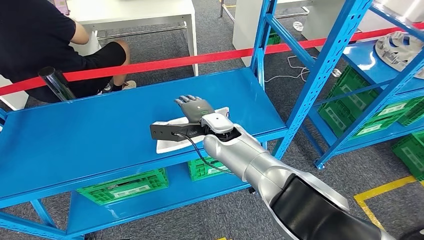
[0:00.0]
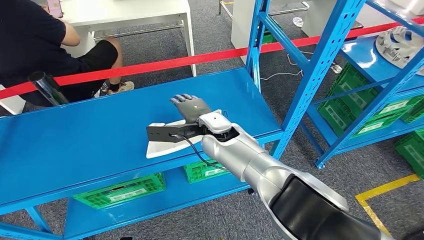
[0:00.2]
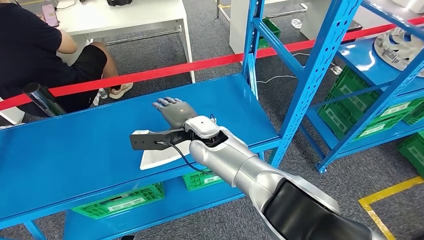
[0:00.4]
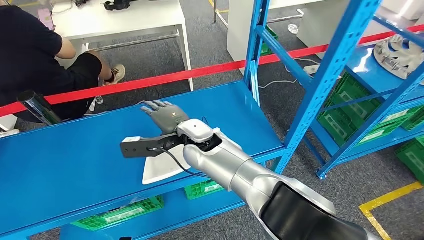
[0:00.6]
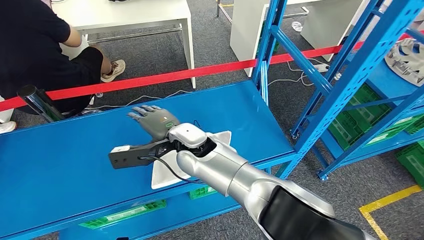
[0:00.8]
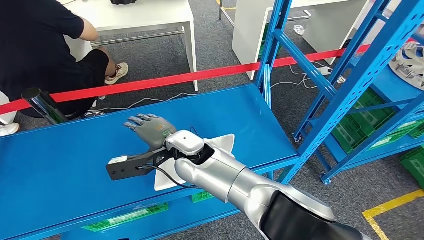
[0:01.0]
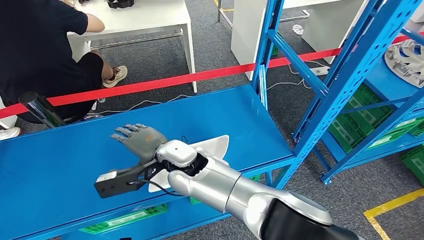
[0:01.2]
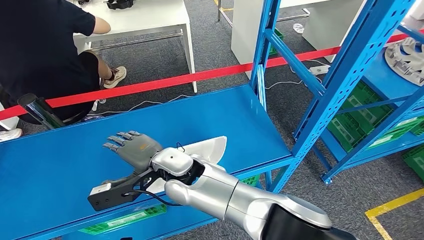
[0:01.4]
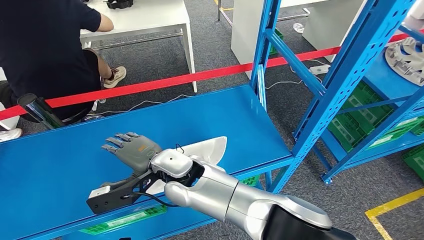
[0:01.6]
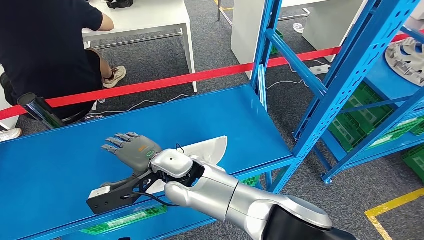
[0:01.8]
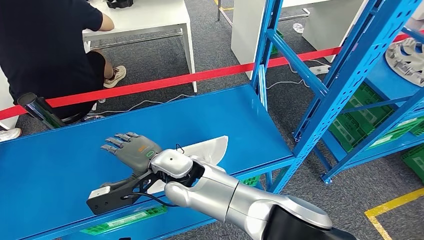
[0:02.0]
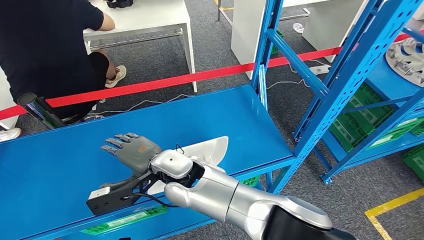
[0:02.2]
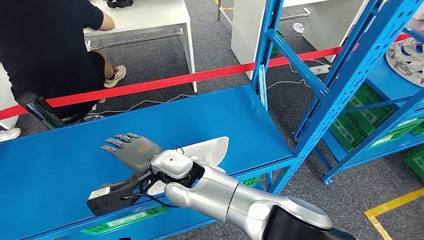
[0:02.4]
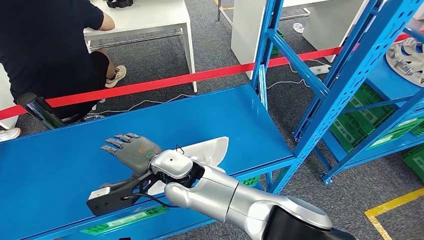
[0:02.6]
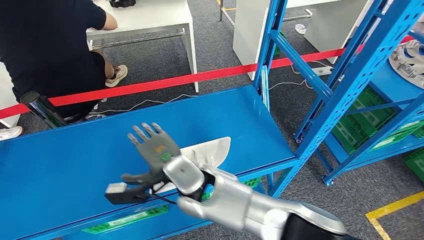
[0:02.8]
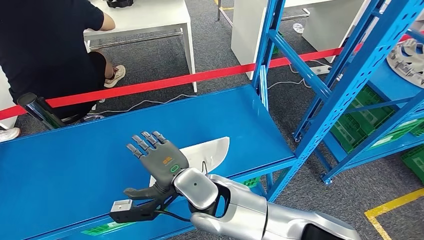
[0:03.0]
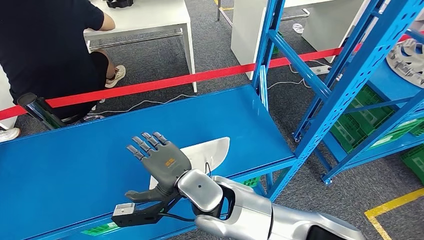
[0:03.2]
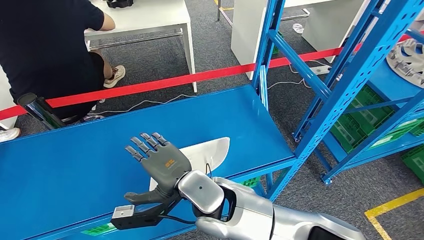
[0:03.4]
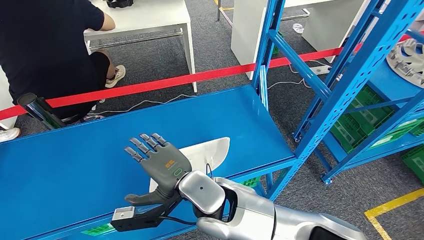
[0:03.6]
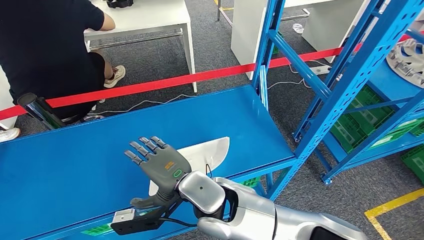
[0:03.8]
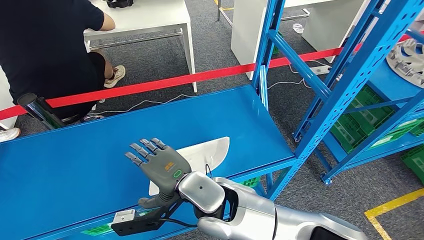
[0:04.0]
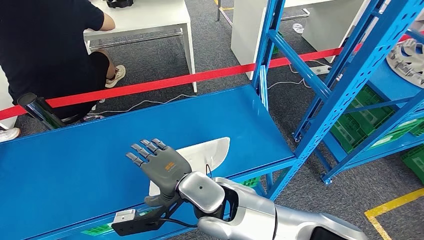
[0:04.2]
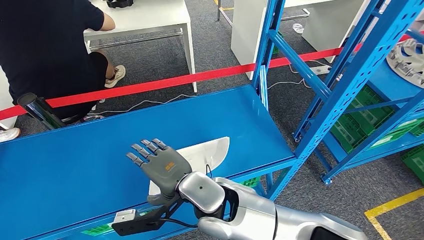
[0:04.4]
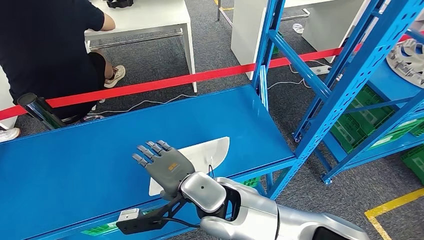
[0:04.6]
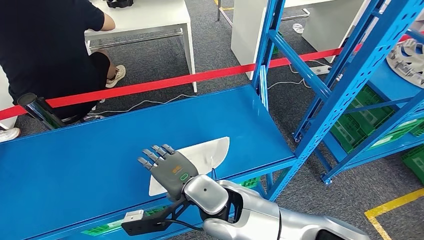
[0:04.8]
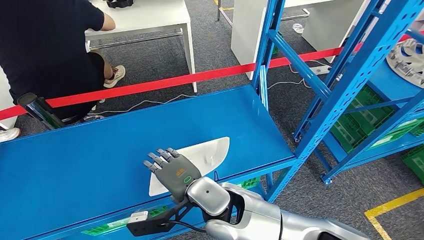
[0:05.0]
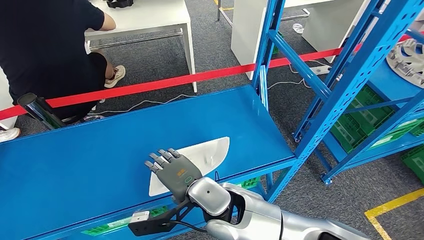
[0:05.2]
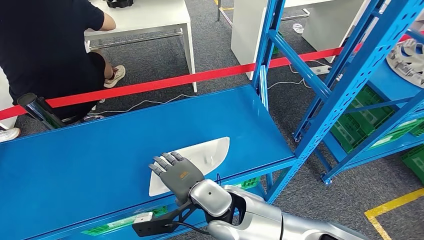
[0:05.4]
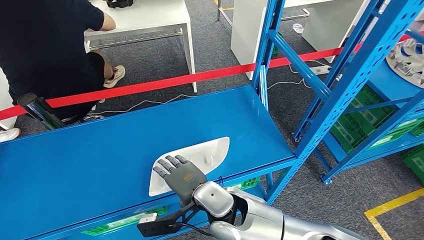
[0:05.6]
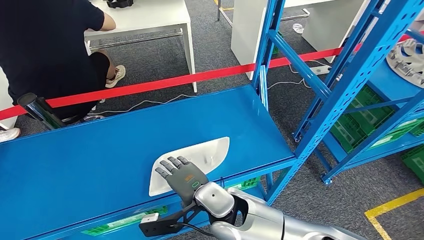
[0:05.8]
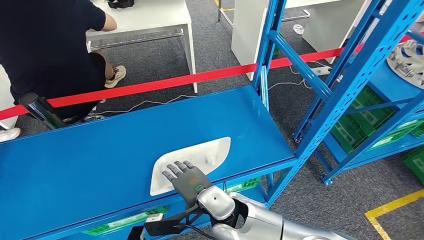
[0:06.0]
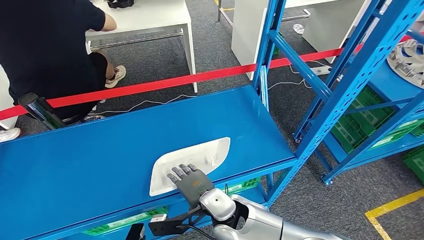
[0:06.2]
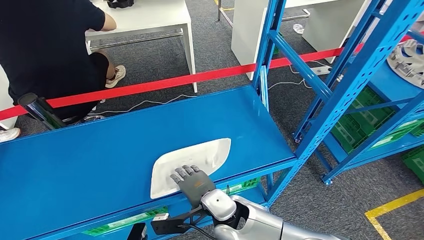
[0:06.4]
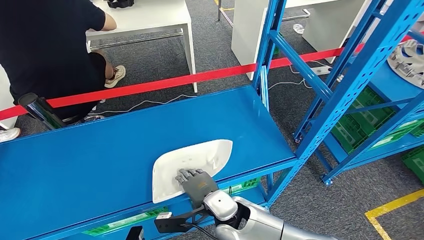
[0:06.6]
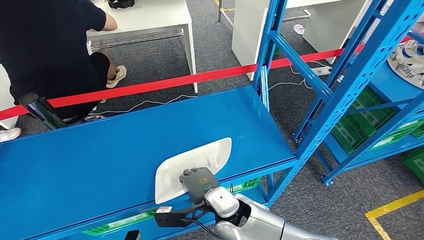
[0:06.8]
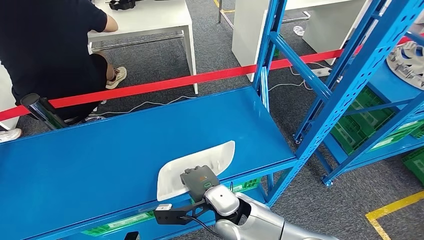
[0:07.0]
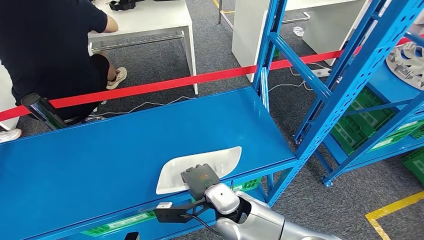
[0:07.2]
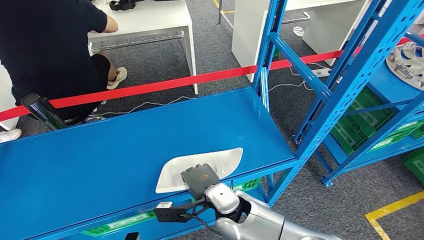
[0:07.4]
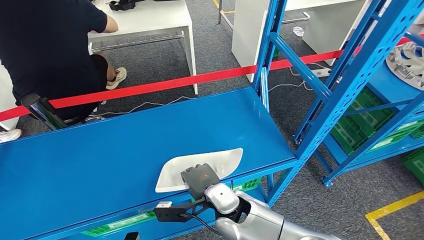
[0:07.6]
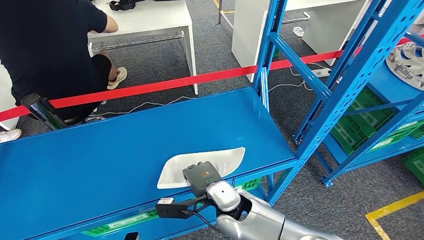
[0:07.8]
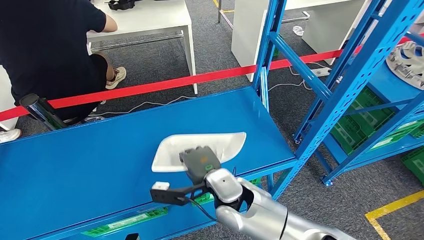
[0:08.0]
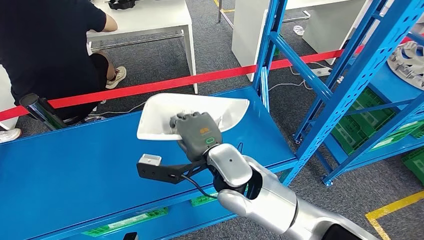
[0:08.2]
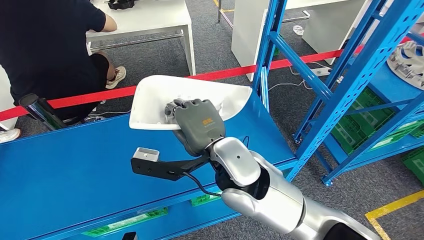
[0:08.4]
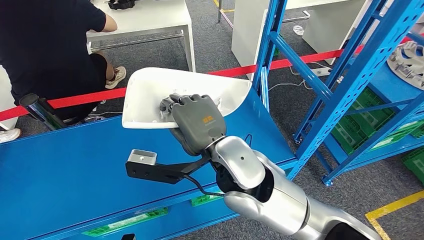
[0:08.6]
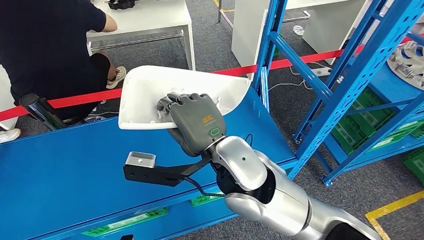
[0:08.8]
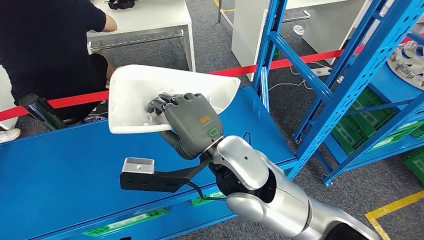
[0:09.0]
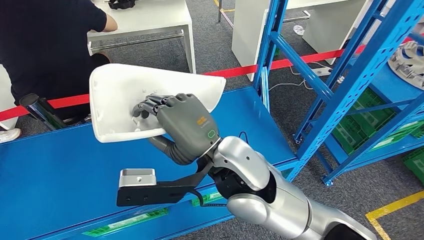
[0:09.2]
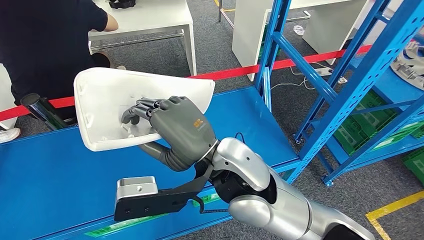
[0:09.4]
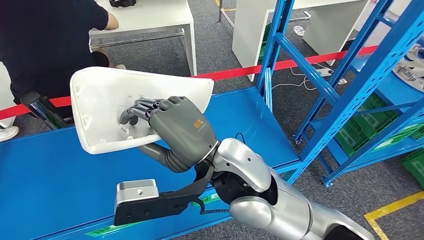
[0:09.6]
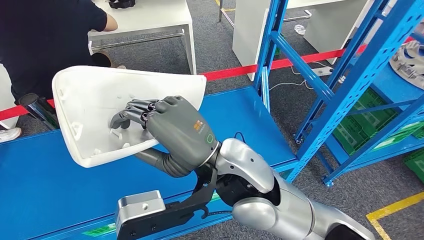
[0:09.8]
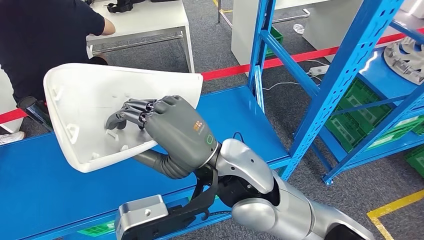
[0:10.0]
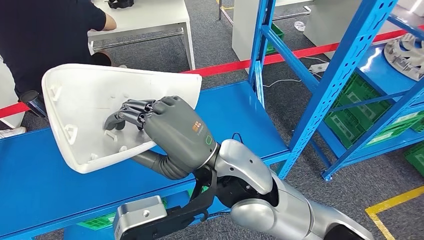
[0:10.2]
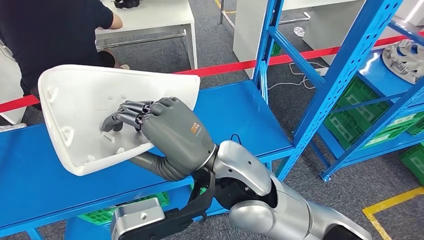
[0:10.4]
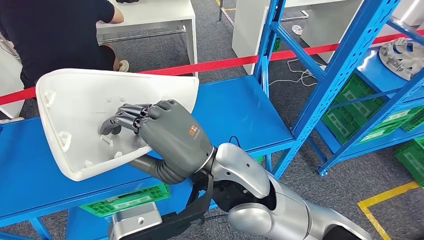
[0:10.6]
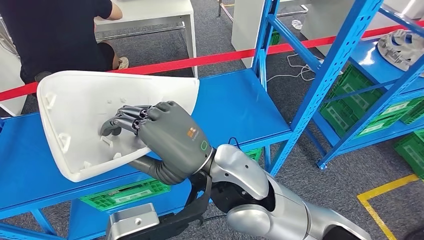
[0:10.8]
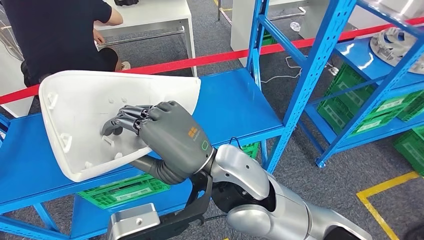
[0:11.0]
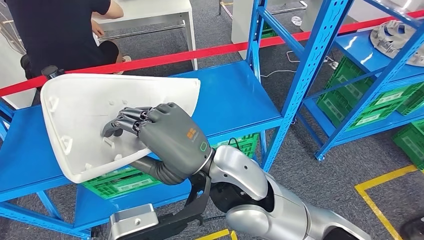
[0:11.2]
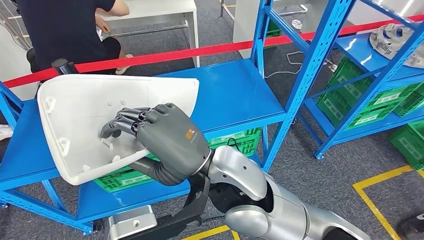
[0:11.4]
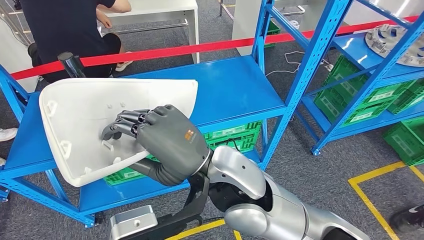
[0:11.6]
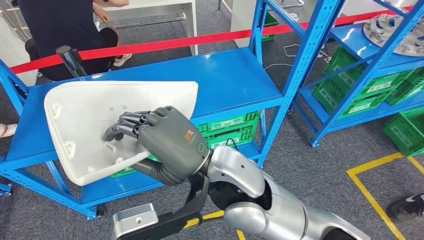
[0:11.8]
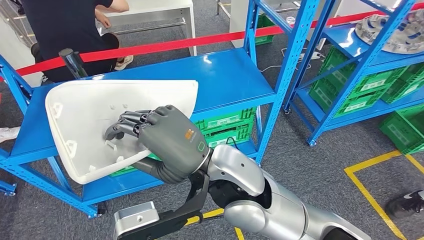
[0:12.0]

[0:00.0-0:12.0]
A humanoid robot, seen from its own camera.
Step, 0:00.0 to 0:08.8: Pick up the small parts from the shelf.
0:03.0 to 0:04.4: The hands make only small movements.
0:04.4 to 0:06.0: The right hand travels downward by approximately 10 cm; the left hand shifts by some 5 cm.
0:06.0 to 0:07.6: The hands stay close to where they were, moving slightly.

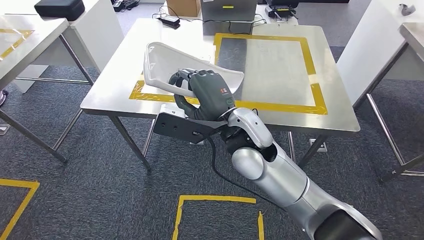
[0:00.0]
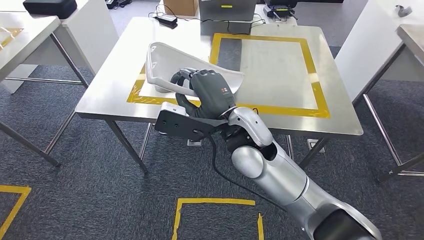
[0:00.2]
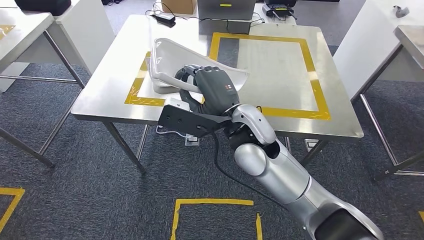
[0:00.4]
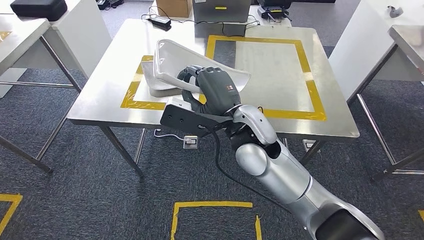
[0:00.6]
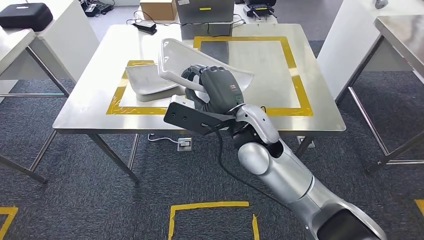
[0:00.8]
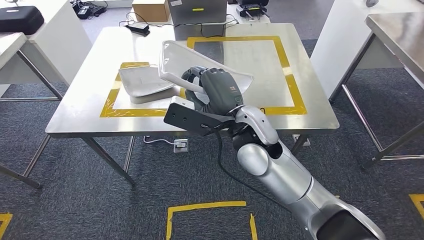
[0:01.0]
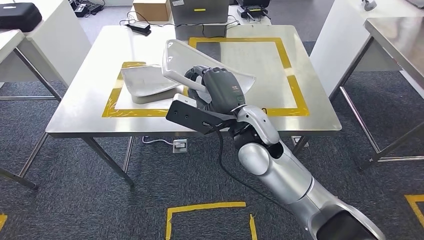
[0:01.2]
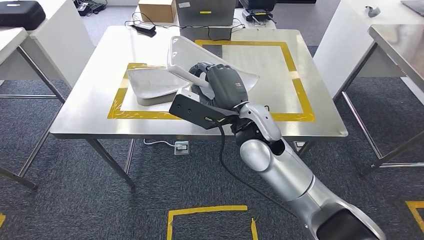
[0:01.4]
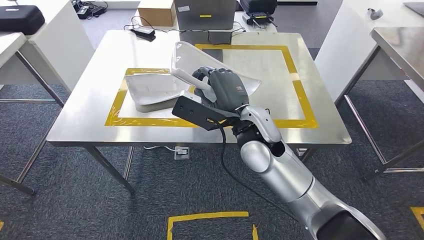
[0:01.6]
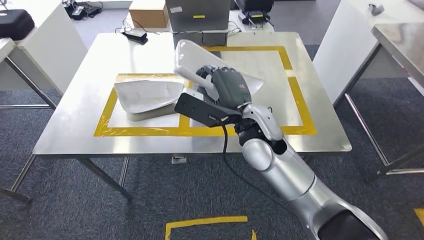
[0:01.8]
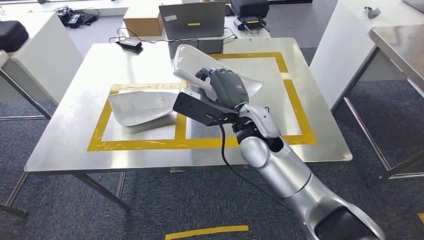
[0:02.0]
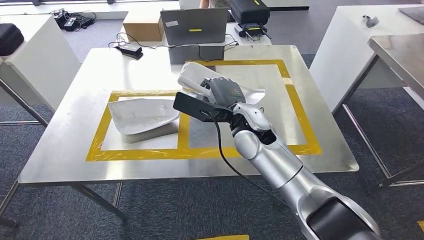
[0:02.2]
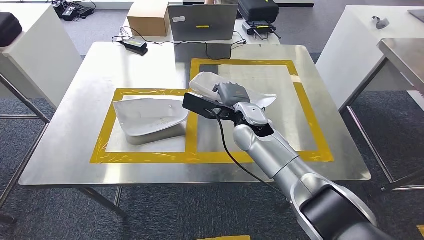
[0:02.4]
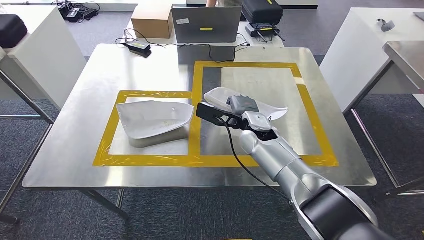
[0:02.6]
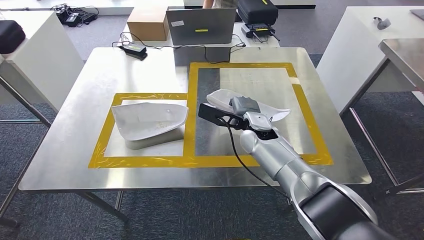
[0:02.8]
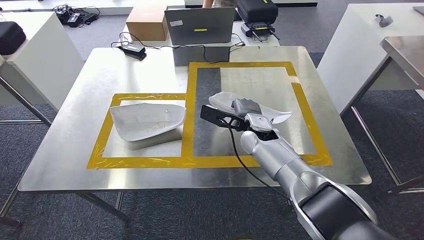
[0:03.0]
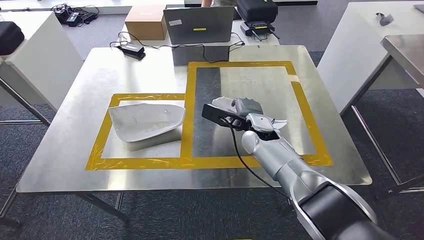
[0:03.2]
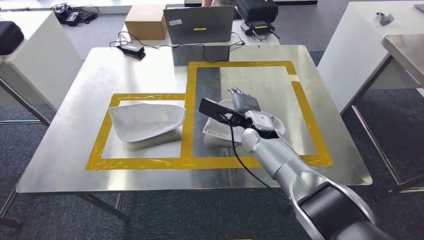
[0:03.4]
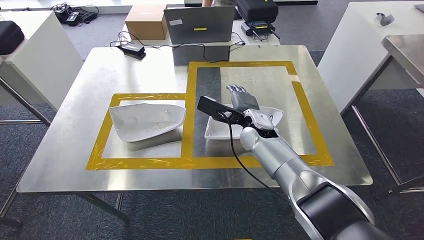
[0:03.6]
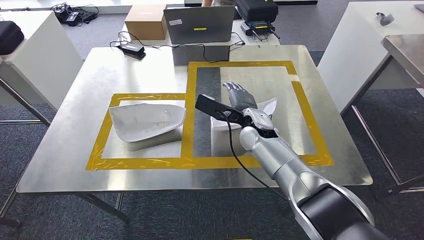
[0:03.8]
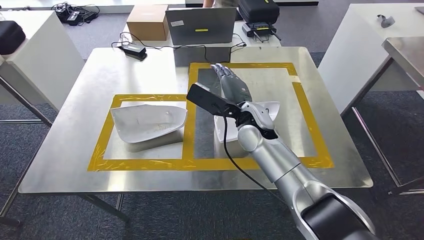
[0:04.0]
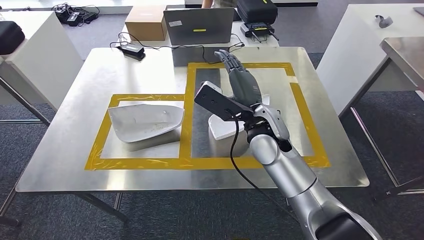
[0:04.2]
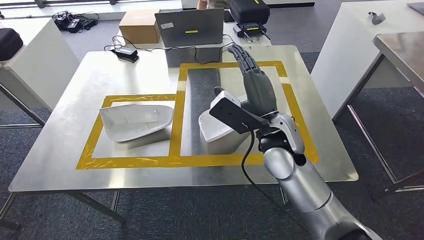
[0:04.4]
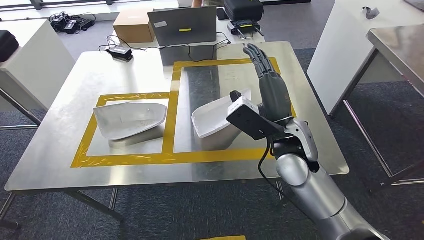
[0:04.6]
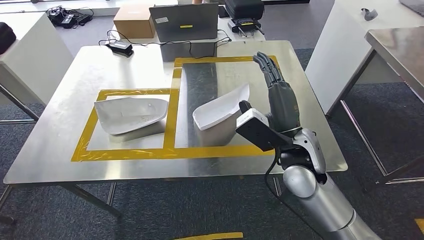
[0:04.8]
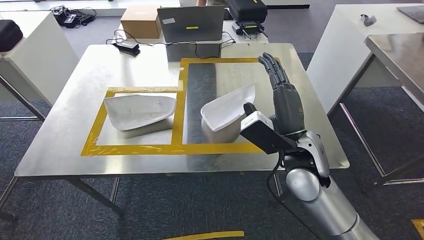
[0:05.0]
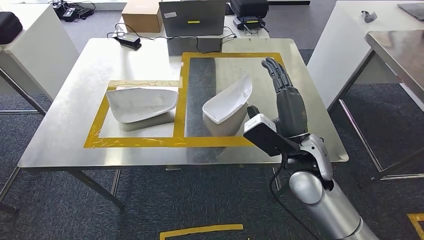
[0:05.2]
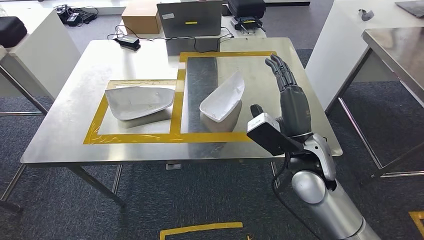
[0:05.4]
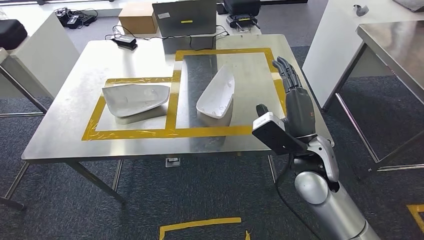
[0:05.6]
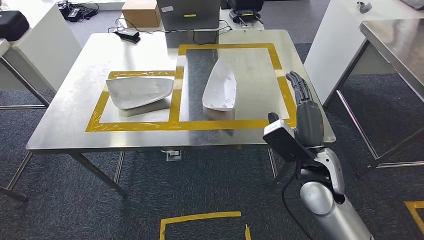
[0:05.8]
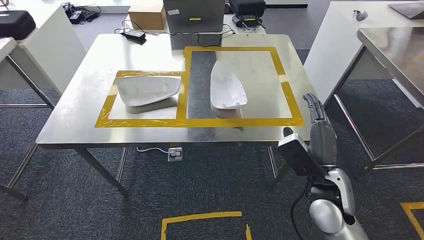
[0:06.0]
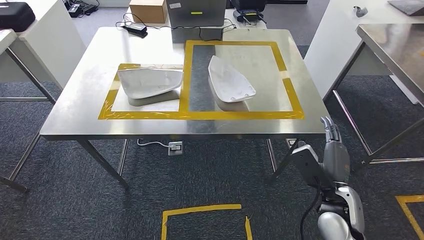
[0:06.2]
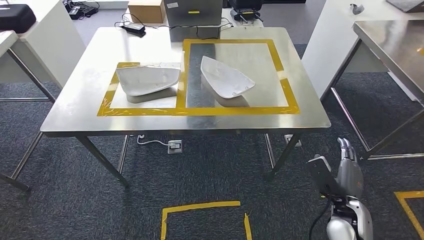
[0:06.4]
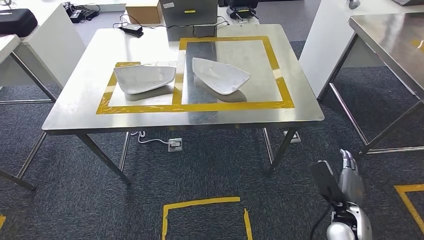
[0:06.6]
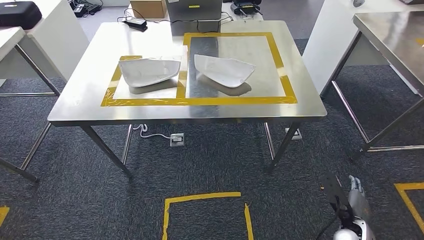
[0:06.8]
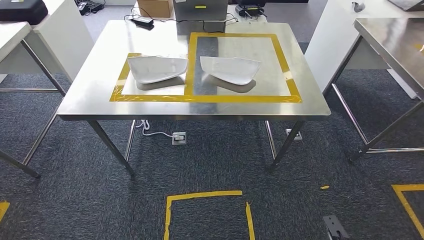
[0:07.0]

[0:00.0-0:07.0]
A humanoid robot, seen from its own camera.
Step, 0:02.0 to 0:04.4: Insert the small parts into the corresponding slots on the workbench.
0:02.8 to 0:04.2: The right hand shifts approximately 10 cm upward.
